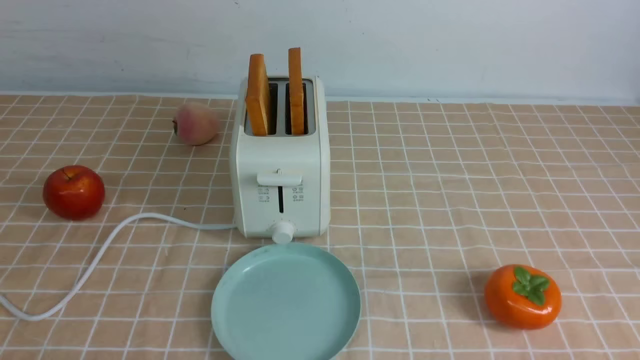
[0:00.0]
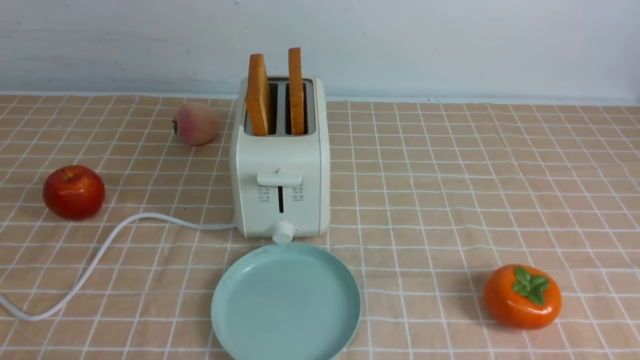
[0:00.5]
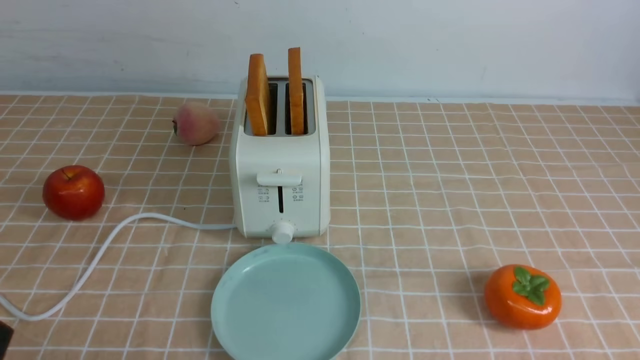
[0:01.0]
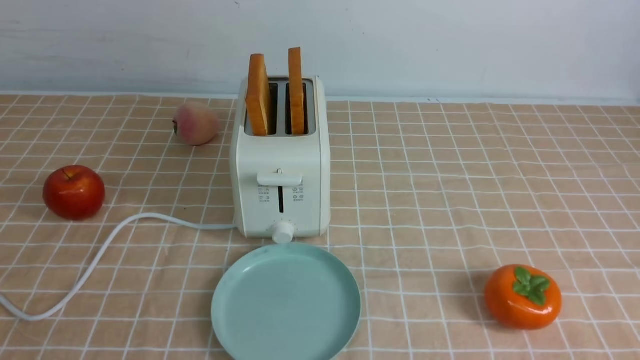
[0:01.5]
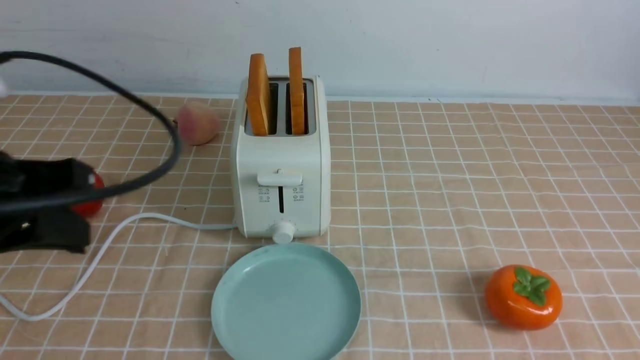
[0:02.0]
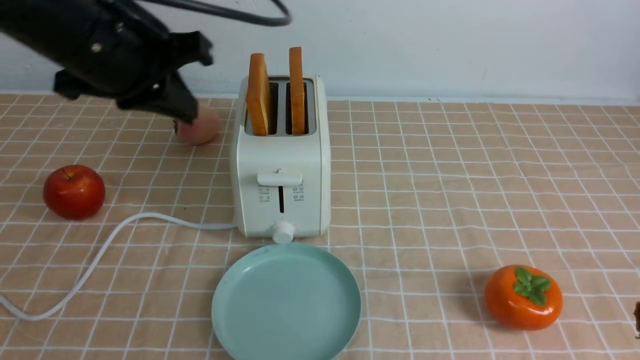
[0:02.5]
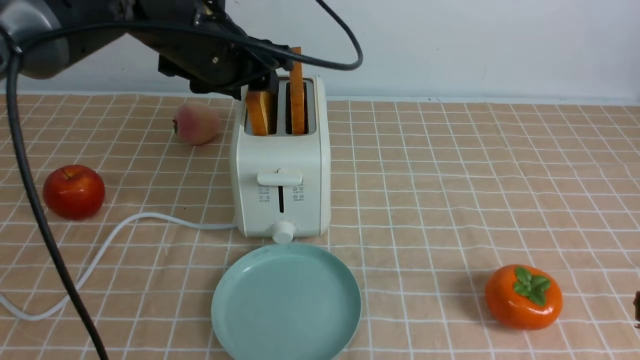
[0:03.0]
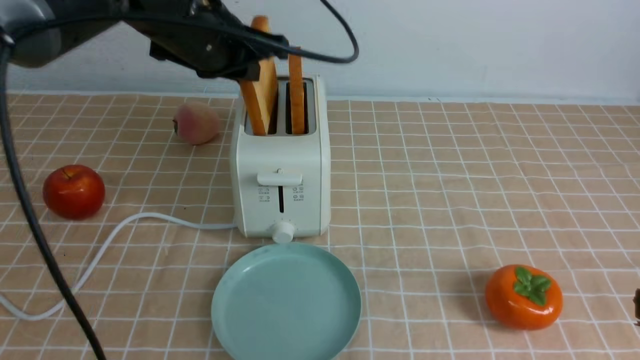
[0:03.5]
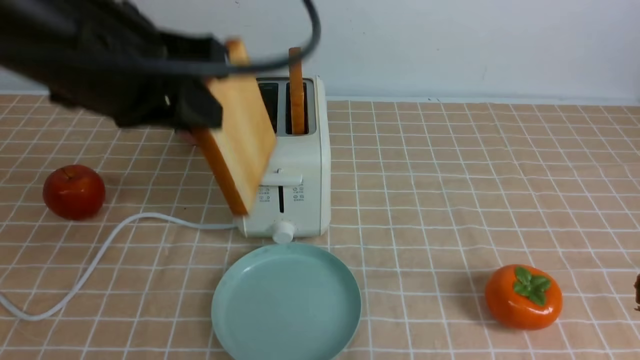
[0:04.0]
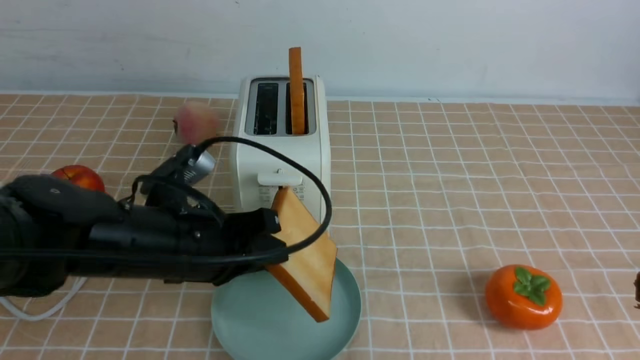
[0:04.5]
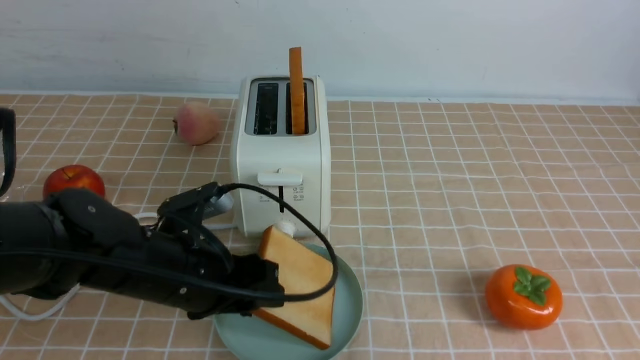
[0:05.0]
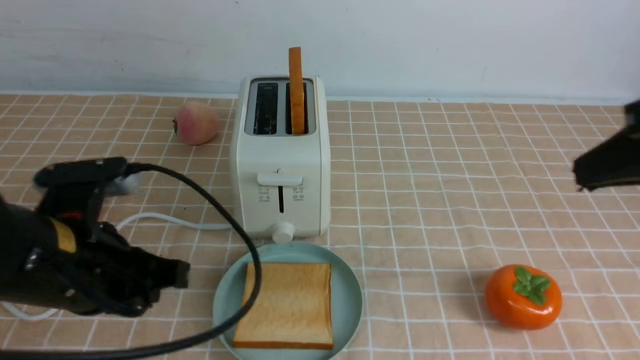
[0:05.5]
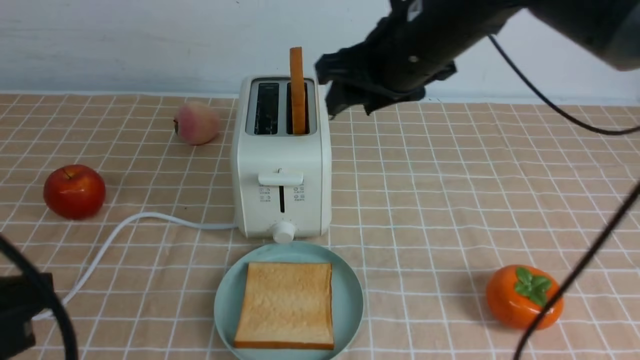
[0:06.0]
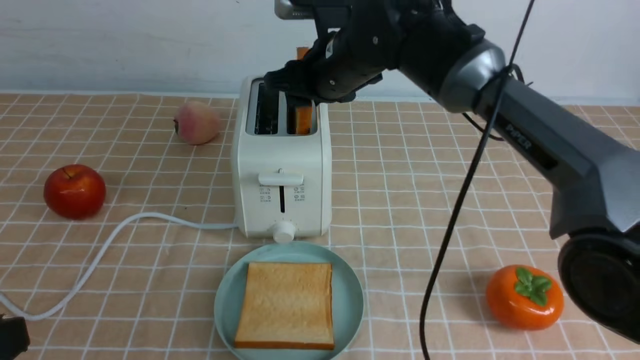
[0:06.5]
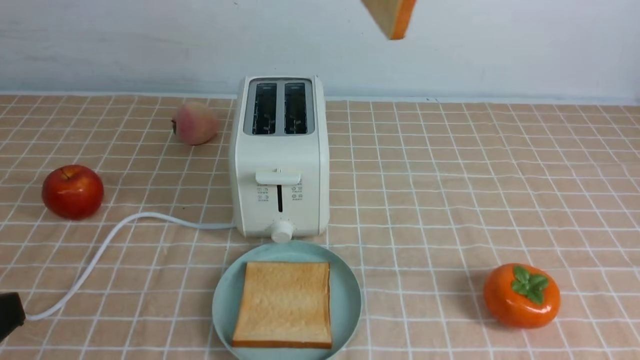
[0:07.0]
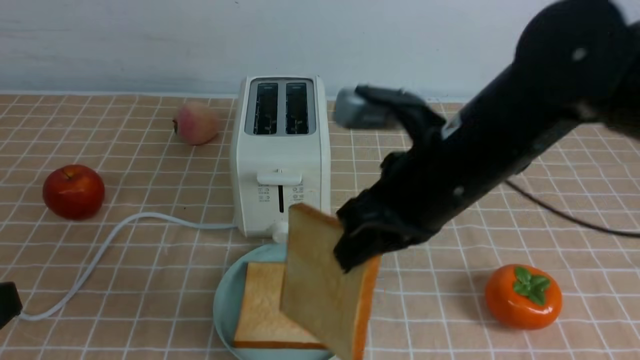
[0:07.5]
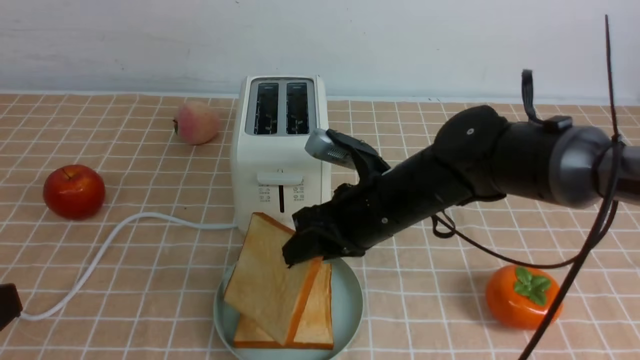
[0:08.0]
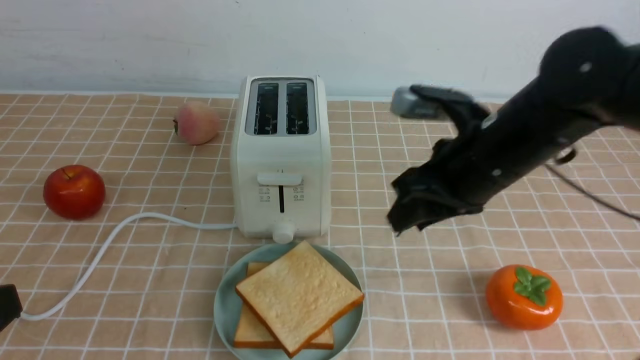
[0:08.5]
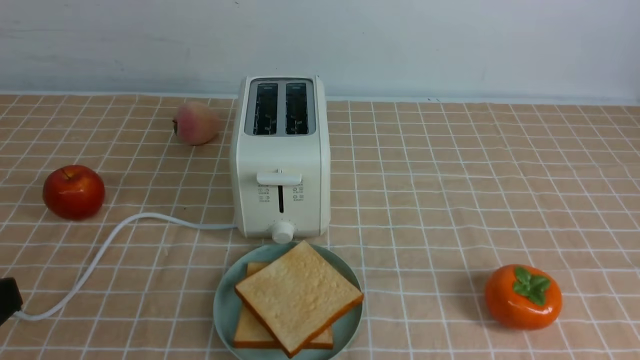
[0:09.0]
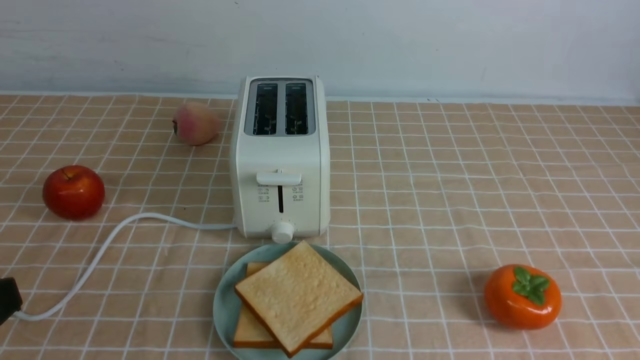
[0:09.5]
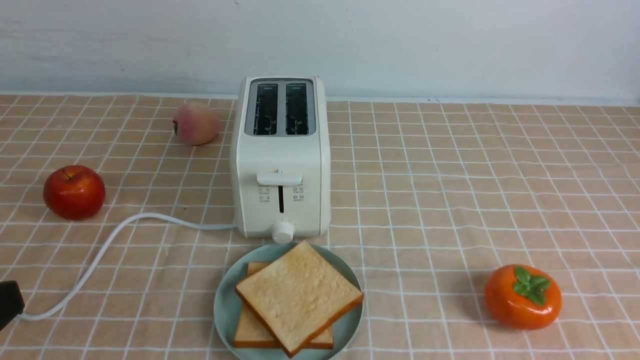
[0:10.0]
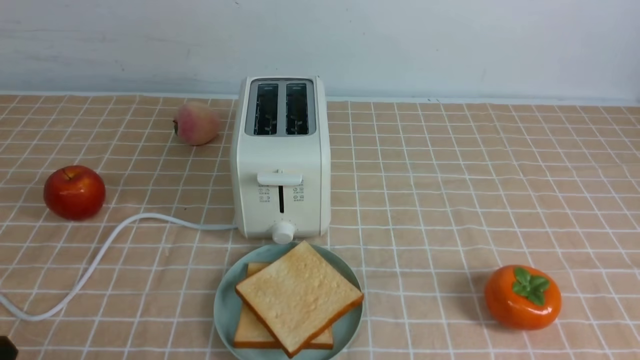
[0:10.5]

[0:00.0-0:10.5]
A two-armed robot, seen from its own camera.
Task of the whole recording: take toasted bread from bread machine on light coffee tablecloth place on plate.
Step, 0:00.0 to 0:03.0: use the left arm to take out a slice of bread.
Step, 0:04.0 to 0:05.0: use the left arm to put a slice of bread into the empty plate.
Step, 0:05.5 to 0:06.5: use the right arm to take out a slice of bread.
Step, 0:07.0 to 0:08.0: use the right arm to put a slice of bread into the plate.
0:02.0 to 0:04.0: The left gripper shifts approximately 15 cm forward and to the right, and opens, then closes again, while the right gripper heads upward and forward, covering roughly 10 cm.
0:04.0 to 0:06.5: The right gripper travels forward and to the left by roughly 40 cm, and opens. Meanwhile the left gripper is displaced backward, downward and to the left by some 25 cm, and opens, then closes again.
0:06.5 to 0:08.5: The right gripper goes up and down, approximately 25 cm each way, reversing 2 times, and closes, then reopens.
0:08.5 to 0:10.5: The left gripper travels downward by about 10 cm; the right gripper moves backward and to the right, some 30 cm, and closes.

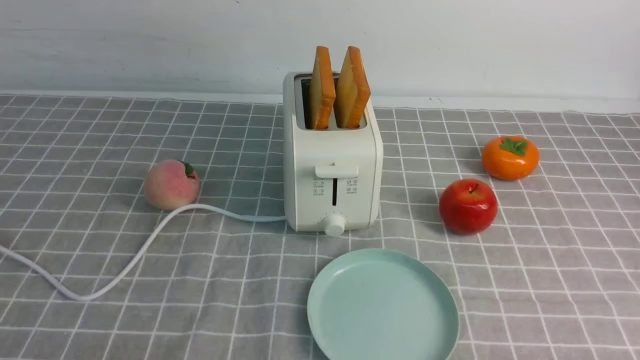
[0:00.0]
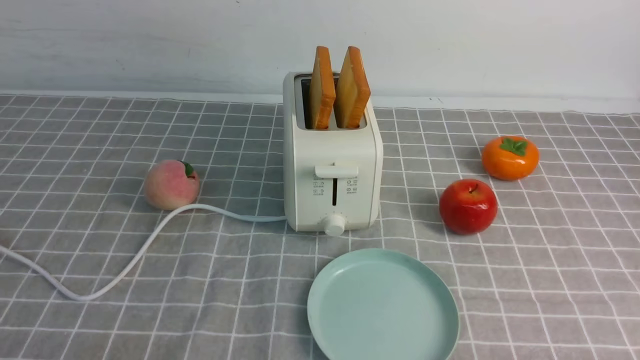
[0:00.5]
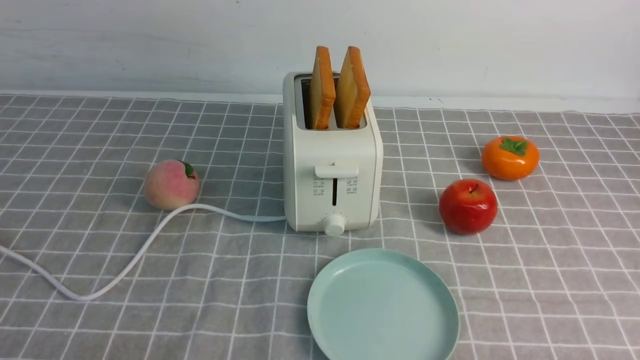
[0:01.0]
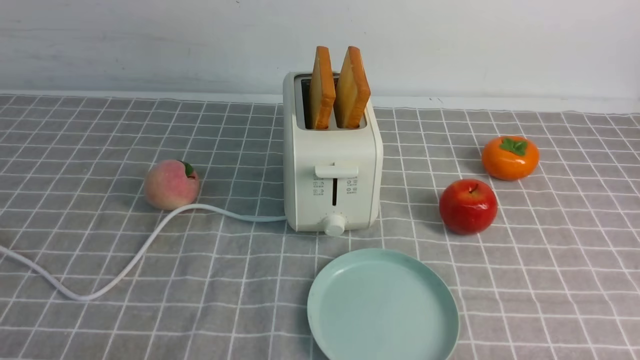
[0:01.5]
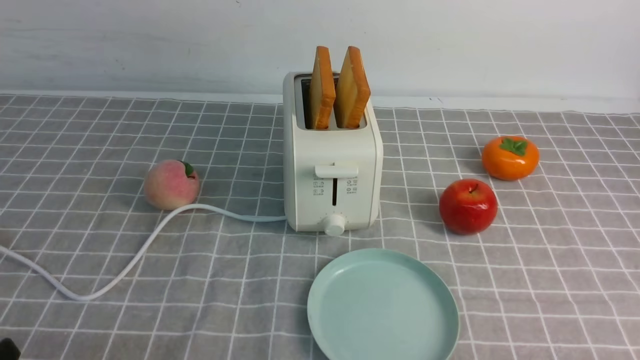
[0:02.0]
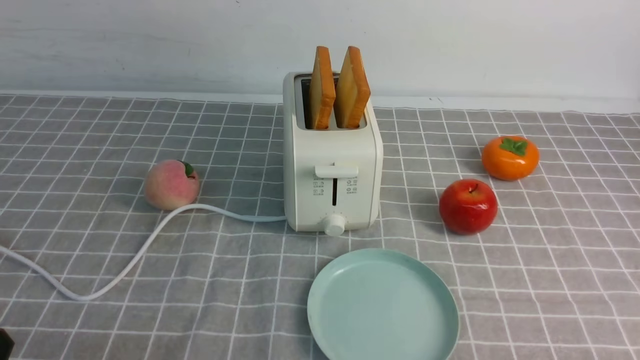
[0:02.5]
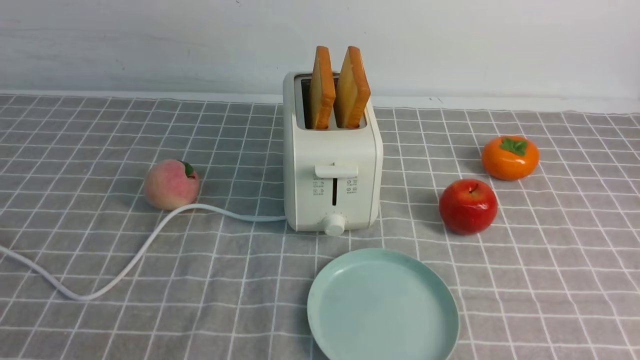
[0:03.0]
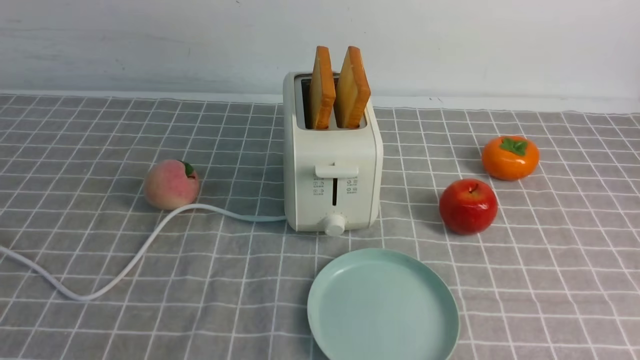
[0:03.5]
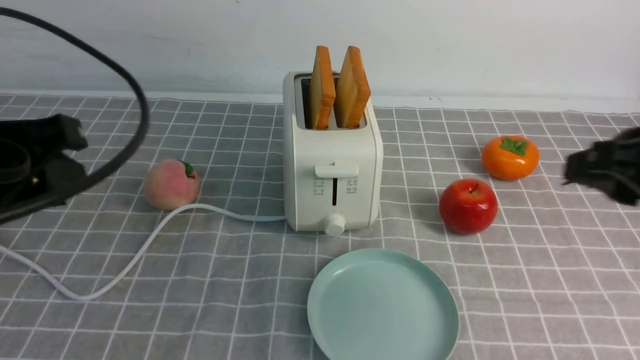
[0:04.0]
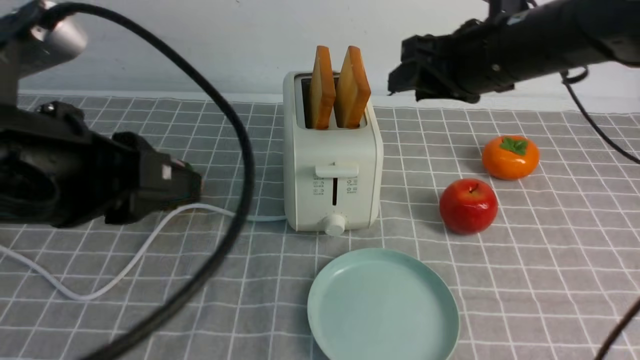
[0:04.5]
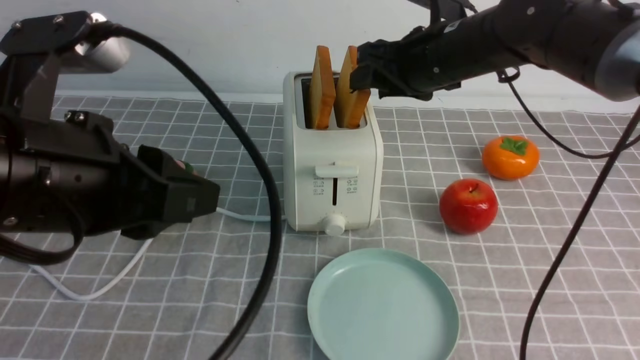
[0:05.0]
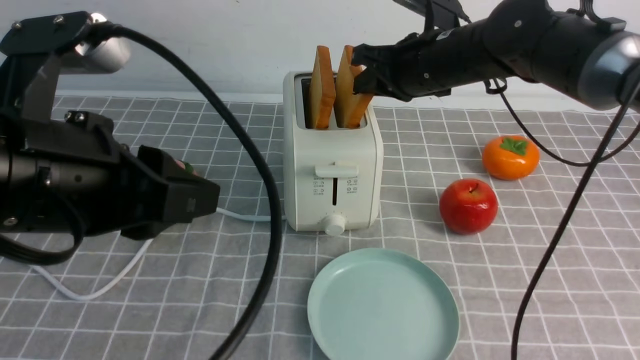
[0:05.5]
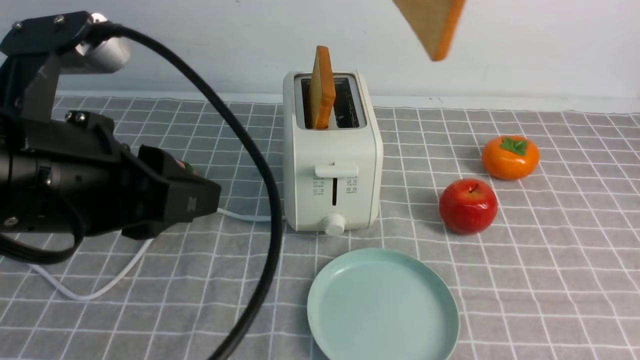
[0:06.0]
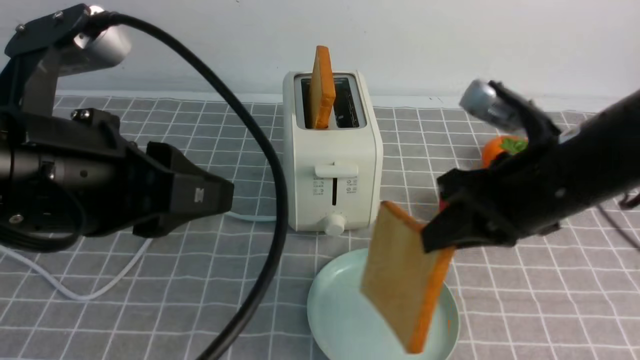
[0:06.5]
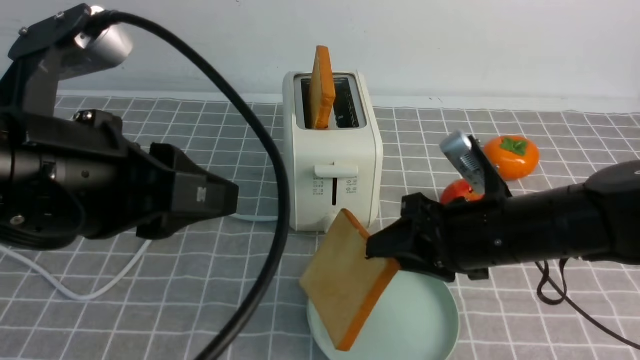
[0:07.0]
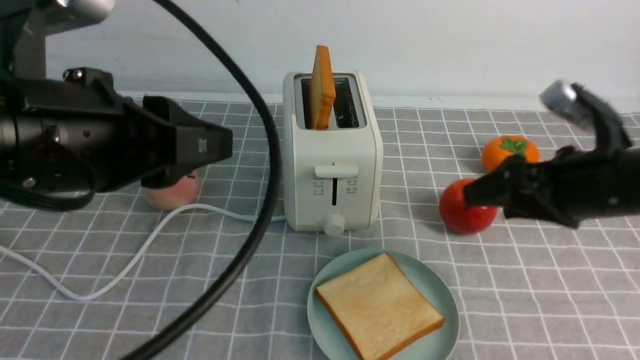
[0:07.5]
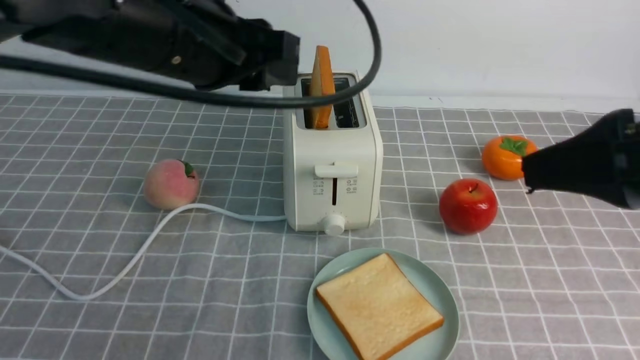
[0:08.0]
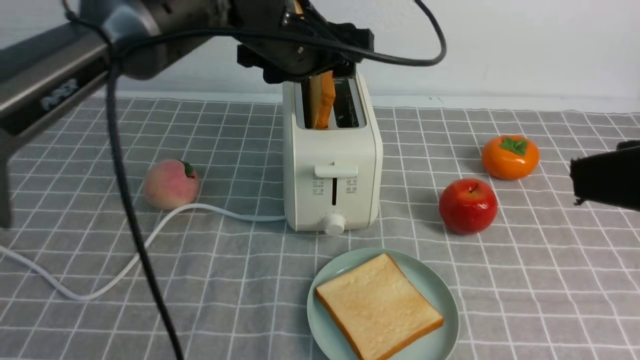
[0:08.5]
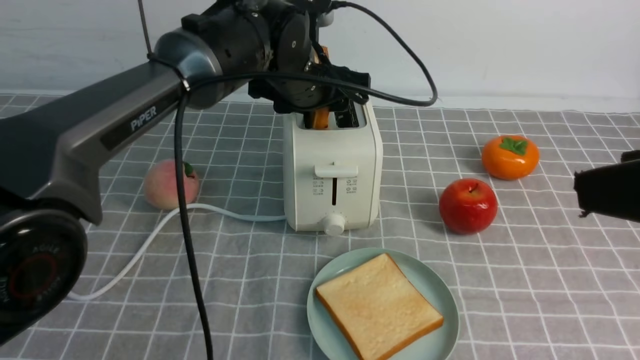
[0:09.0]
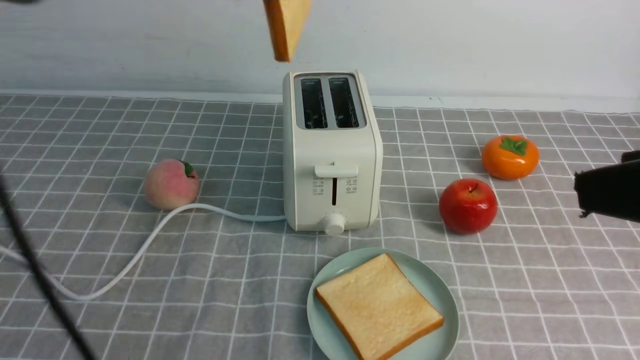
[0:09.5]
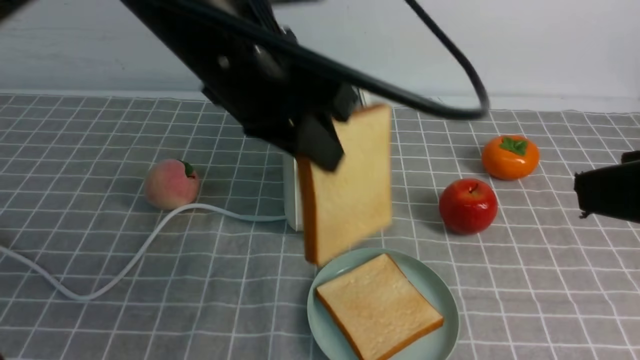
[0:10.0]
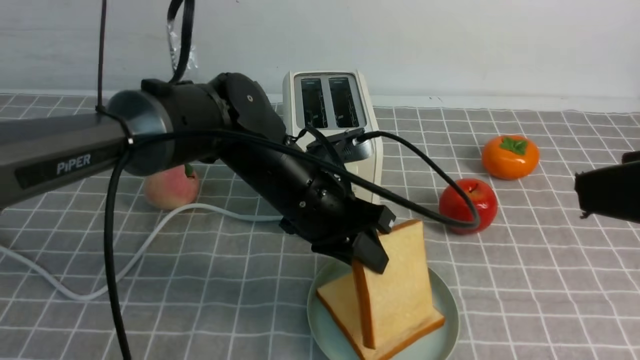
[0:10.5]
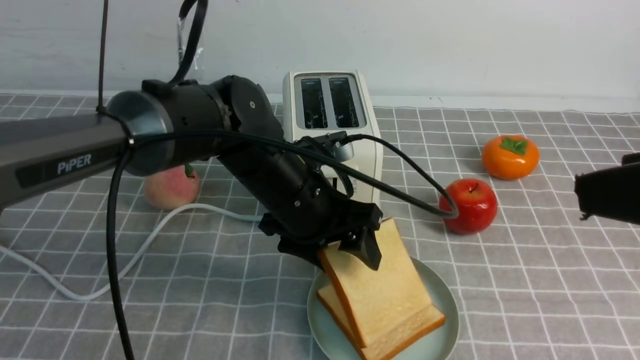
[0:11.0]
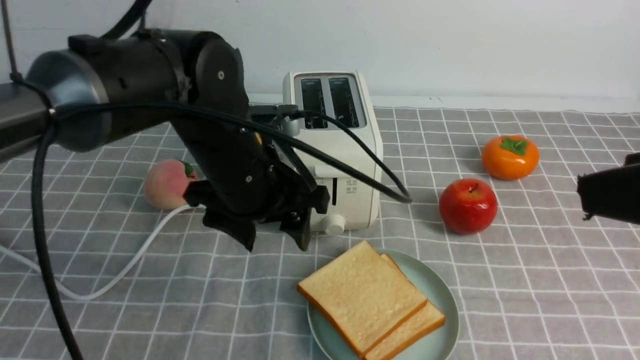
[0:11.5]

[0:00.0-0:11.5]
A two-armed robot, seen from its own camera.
Task of the whole recording: take toasted bread from bread machine on grey coffee table place on plate.
Step, 0:00.0 to 0:05.5: use the right arm to take out a slice of bread.
Step, 0:06.0 to 0:07.0: use the right arm to put a slice of bread into the plate.
Step, 0:08.0 to 0:09.0: use the left arm to take out a slice of bread.
Step, 0:09.5 to 0:11.0: use the left arm to put a slice of bread into the empty plate.
0:02.0 to 0:04.0: The two grippers go approximately 25 cm upward and forward.
0:04.0 to 0:06.0: The left gripper shifts some 5 cm to the right; the right gripper shifts some 20 cm forward and to the left.
0:06.0 to 0:07.5: The right gripper shifts some 15 cm downward, and opens its fingers.
0:07.5 to 0:09.5: The right gripper is displaced backward and upward by some 20 cm; the left gripper is displaced forward and to the right by some 20 cm, and opens, then closes again.
0:09.5 to 0:11.5: The left gripper heads downward, covering roughly 15 cm, and opens its fingers.
